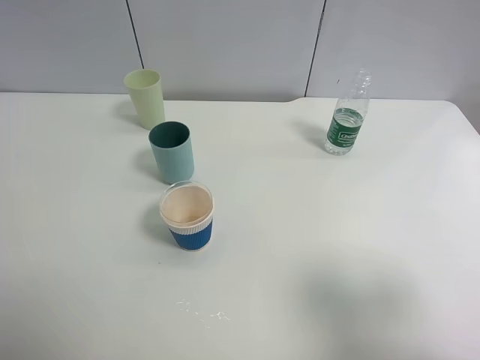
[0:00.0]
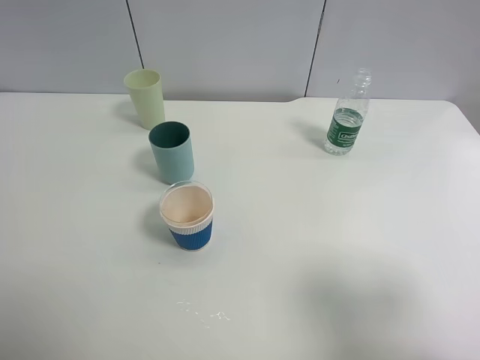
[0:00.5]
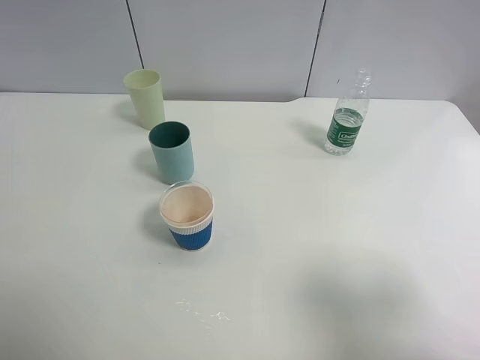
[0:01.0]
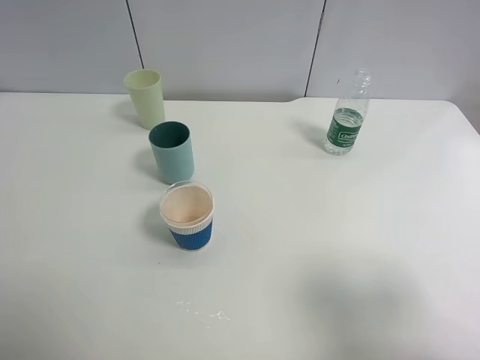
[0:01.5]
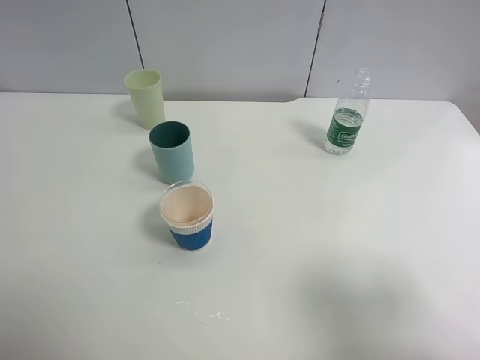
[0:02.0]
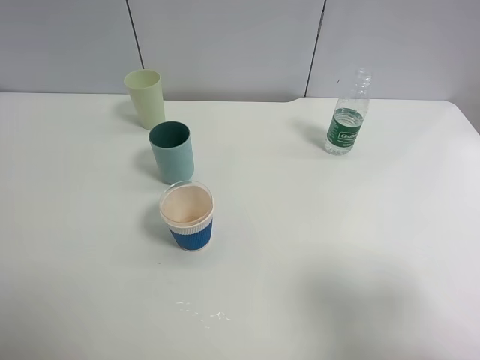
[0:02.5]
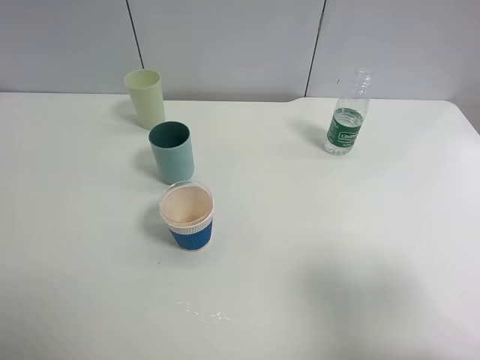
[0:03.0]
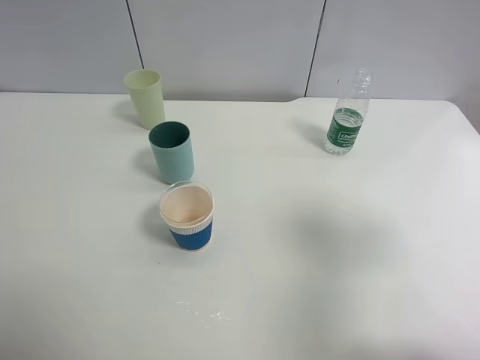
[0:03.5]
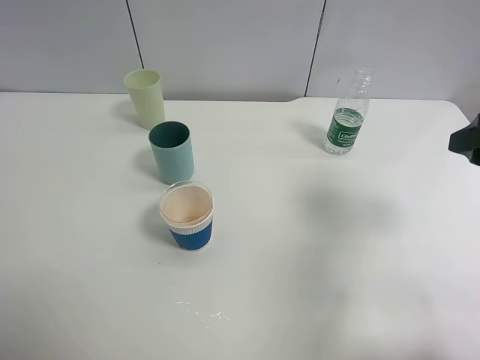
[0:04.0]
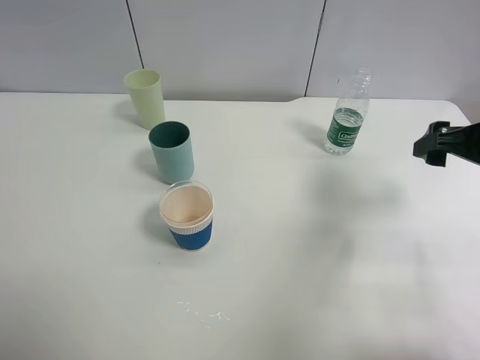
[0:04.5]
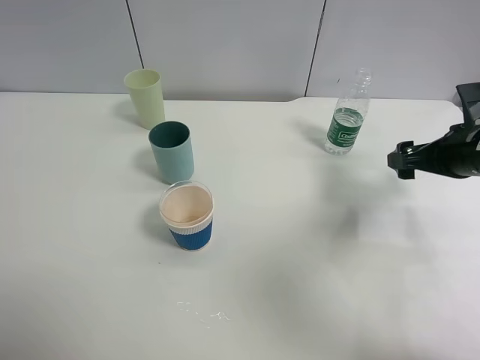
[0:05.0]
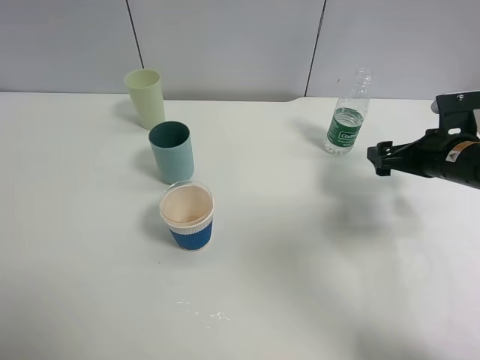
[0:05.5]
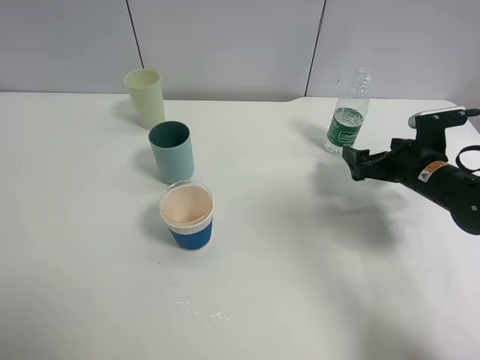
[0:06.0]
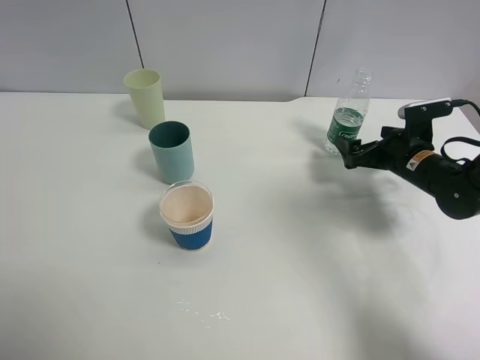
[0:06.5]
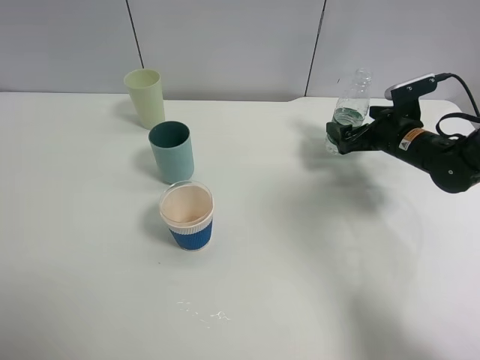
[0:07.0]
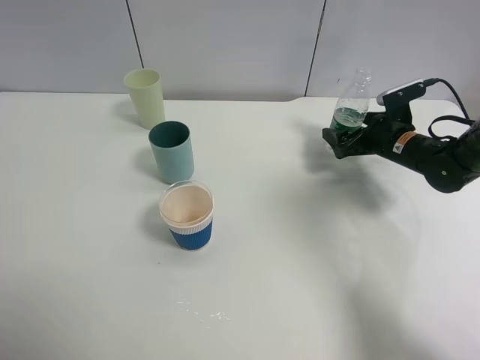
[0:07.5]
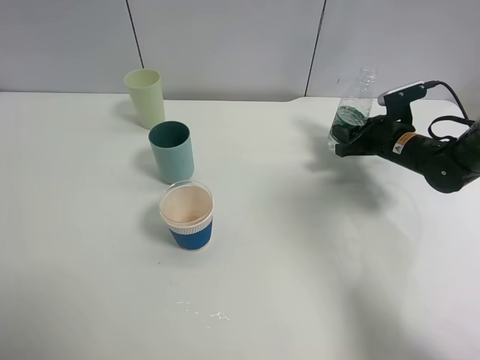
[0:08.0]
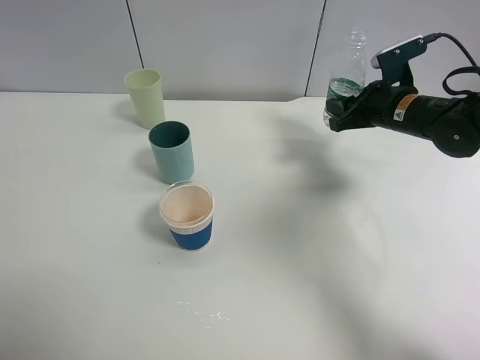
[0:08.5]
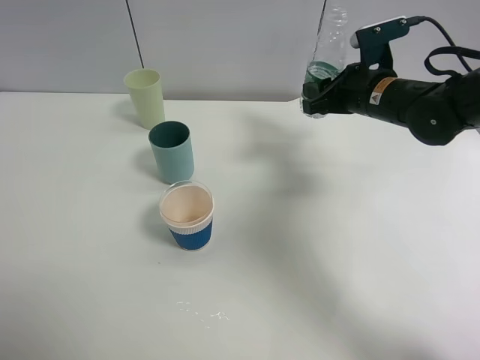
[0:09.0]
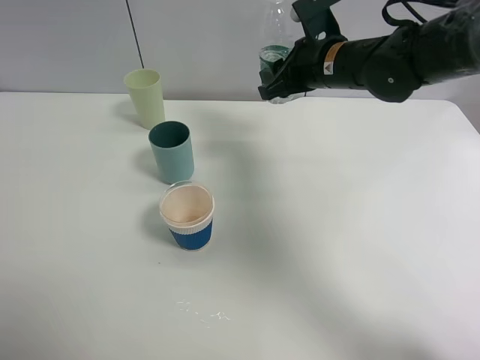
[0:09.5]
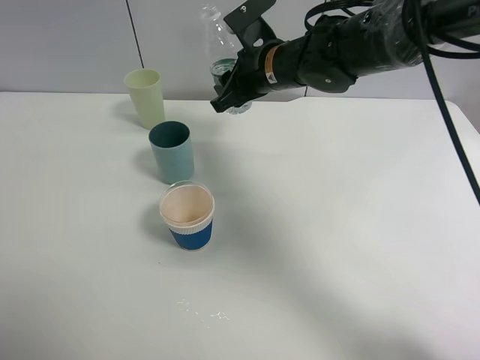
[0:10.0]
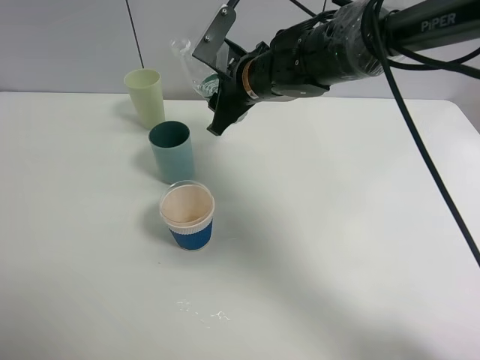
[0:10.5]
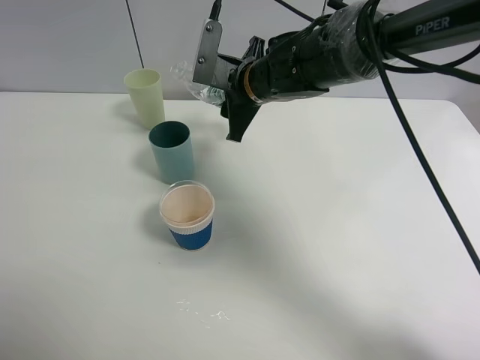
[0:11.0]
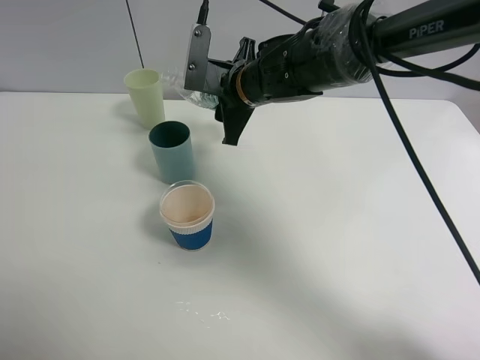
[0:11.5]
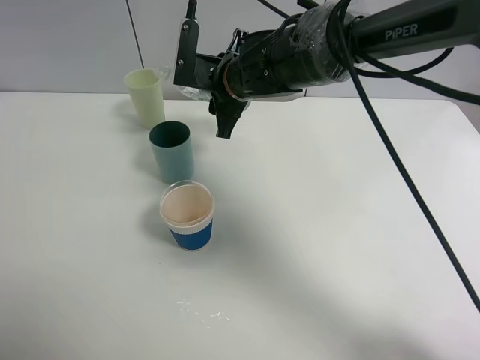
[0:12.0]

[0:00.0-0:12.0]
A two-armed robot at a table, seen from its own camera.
Task of the whole recording: use a clamp to hold the bottle of the drink, pour the beverage into a random cup, then clamp the cup containing the drink and pour the drink into another random cup.
Step, 0:00.0 to 0:09.0: Pick up the water bottle with right gripper.
0:00.0 to 0:02.0: The two grippers keep their place.
0:02.0 to 0:04.0: The right gripper goes roughly 15 cm forward.
0:04.0 to 0:06.0: The right gripper goes roughly 20 cm downward and forward.
0:06.0 to 0:08.0: The right gripper moves forward, approximately 10 cm, and closes its fingers.
0:08.0 to 0:10.0: The right gripper is displaced to the left and upward by some 25 cm.

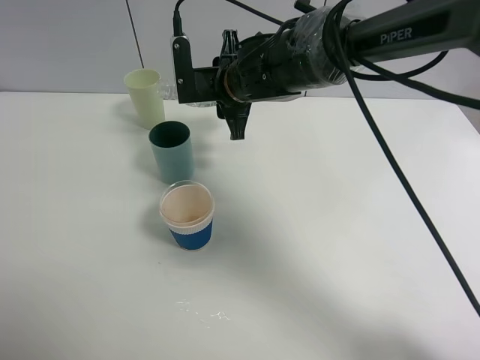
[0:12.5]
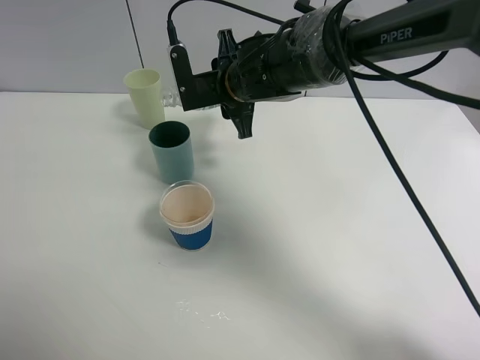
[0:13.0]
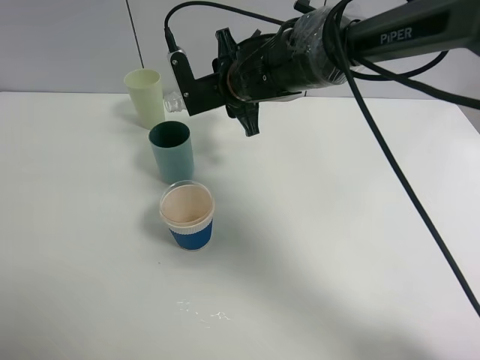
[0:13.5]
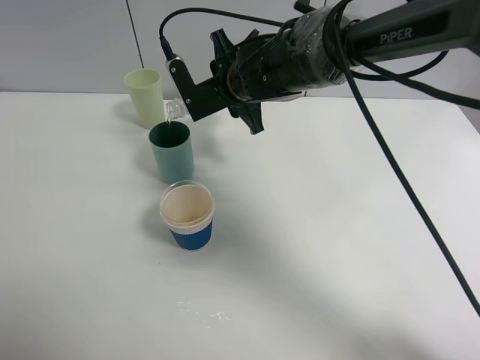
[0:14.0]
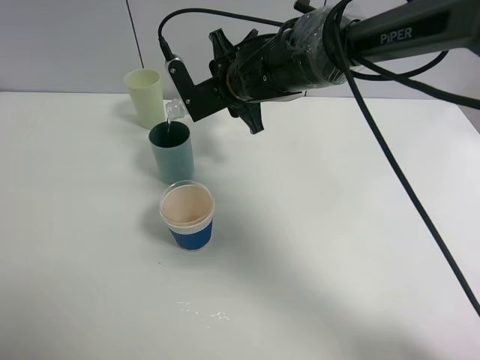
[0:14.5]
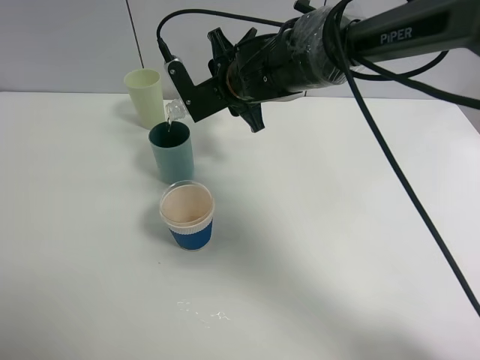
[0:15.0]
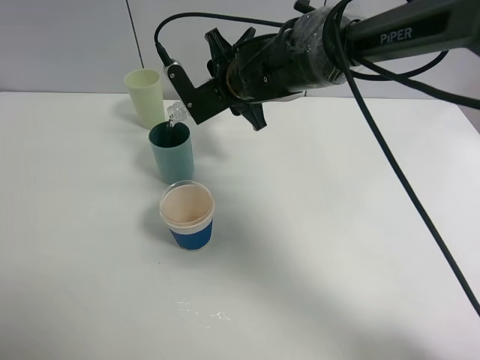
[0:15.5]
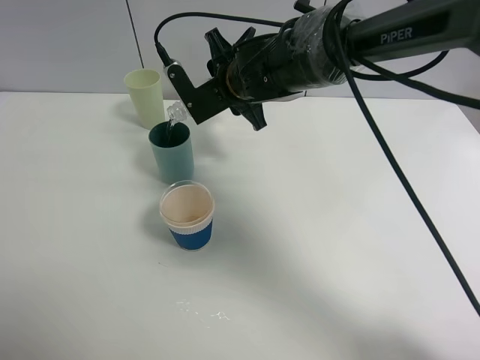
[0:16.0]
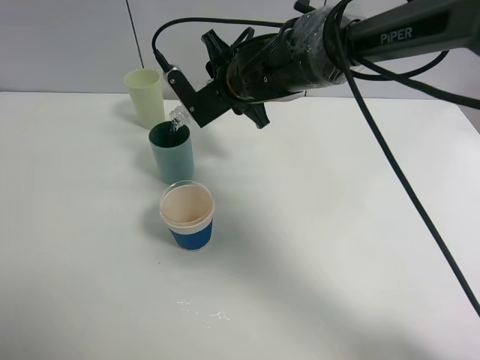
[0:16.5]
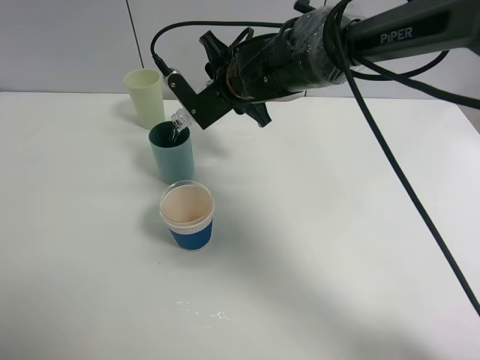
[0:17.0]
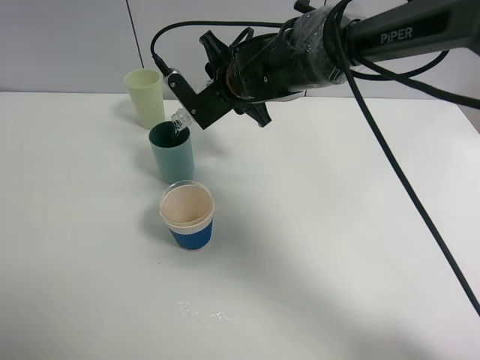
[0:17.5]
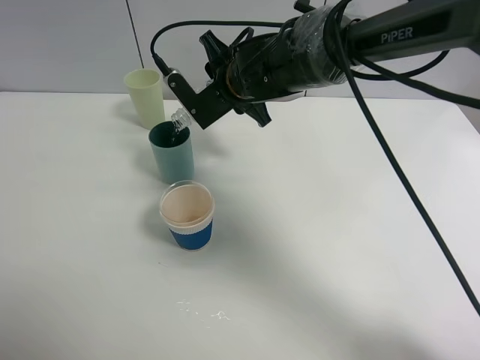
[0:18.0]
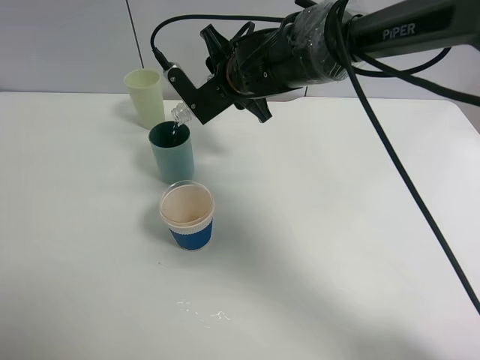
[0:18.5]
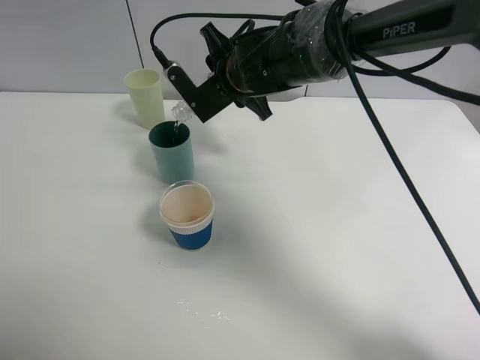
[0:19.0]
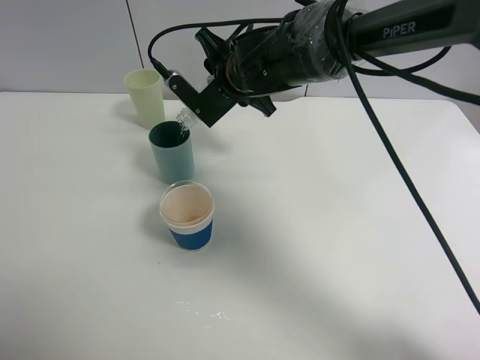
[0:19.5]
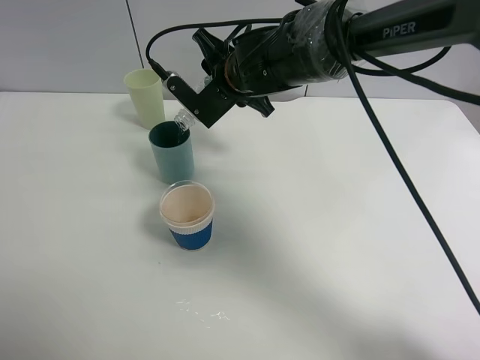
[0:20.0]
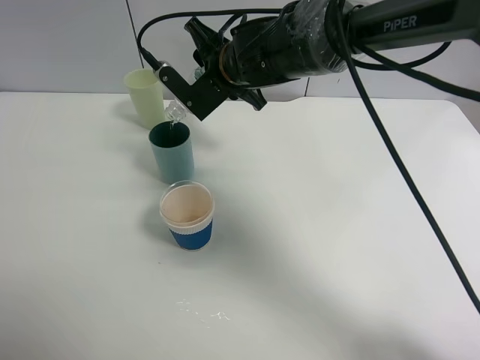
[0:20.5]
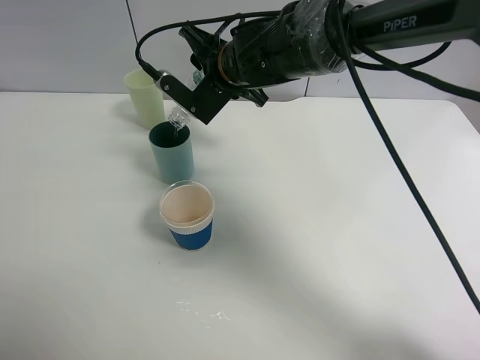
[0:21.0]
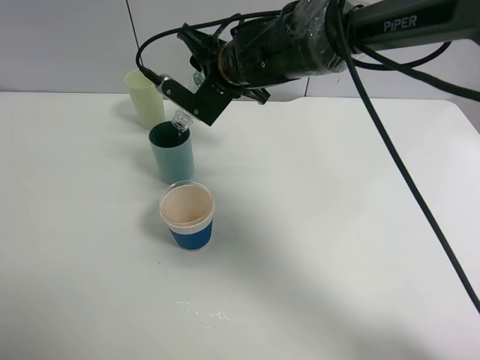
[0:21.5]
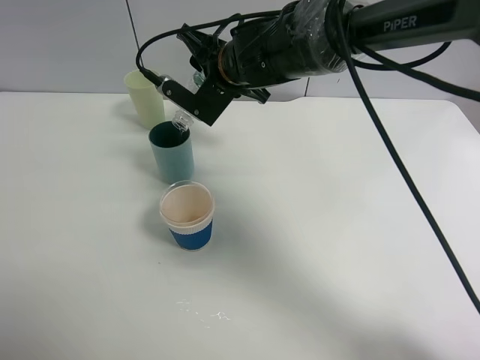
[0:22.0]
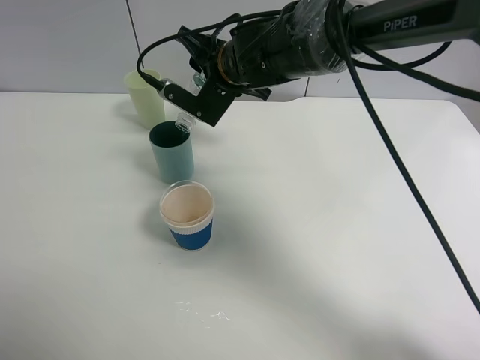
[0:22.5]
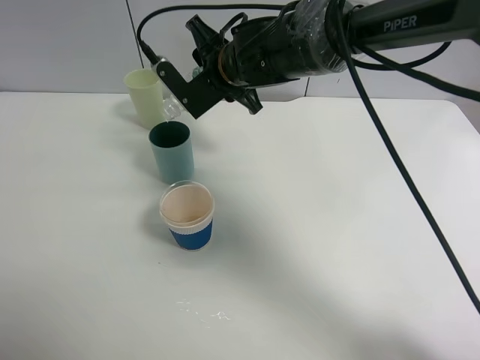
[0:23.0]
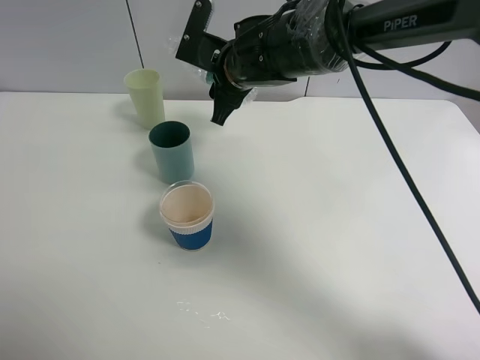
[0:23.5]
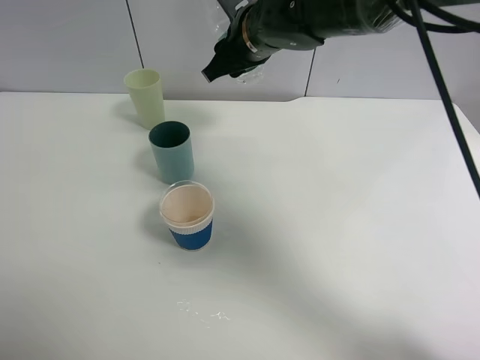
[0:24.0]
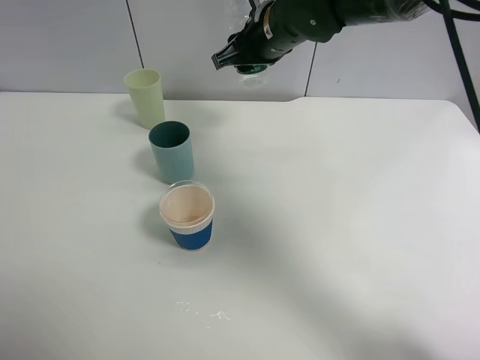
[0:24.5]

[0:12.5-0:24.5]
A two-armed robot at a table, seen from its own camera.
Task of the whole recording: use a clamp to hold the bottle of the drink, pour the beverage into a random cup, then clamp the cup containing the drink and pour the drink into another random cup.
Step, 0:12.5 to 0:23.0: Pour water into the blue plastic cup with right gripper.
0:14.5 to 0:16.5: The grippers make only small movements.
0:16.5 to 0:18.5: Both grippers stay put.
0:18.5 to 0:20.5: The grippers make only small movements.
0:20.5 to 0:22.5: The grippers move only a little.
0:22.5 to 0:24.5: The right gripper moves to the right, approximately 5 cm.

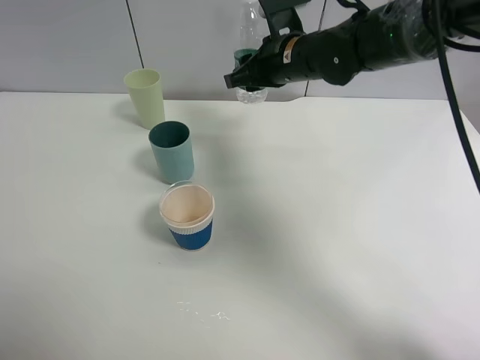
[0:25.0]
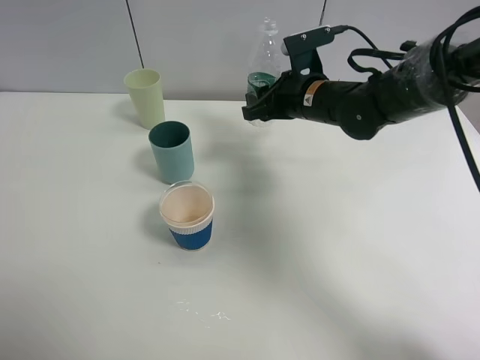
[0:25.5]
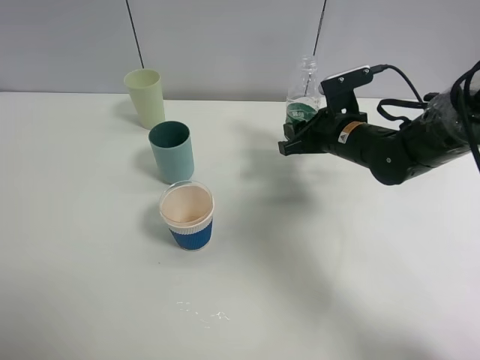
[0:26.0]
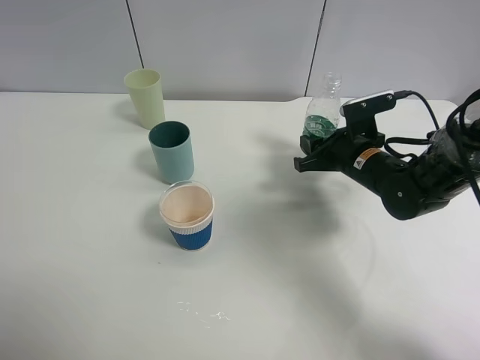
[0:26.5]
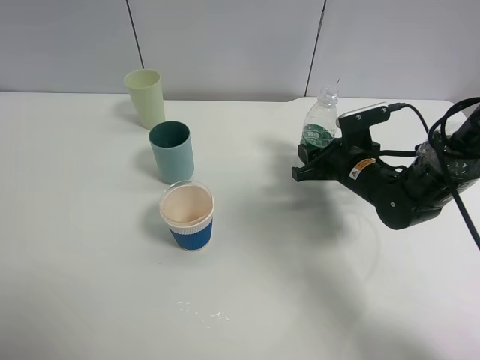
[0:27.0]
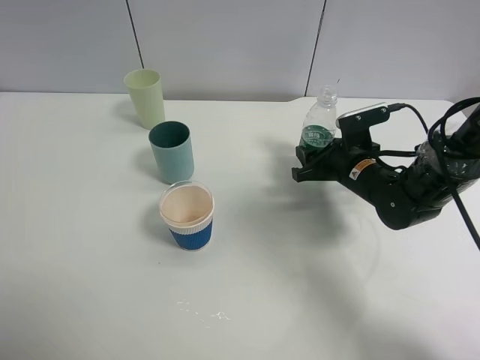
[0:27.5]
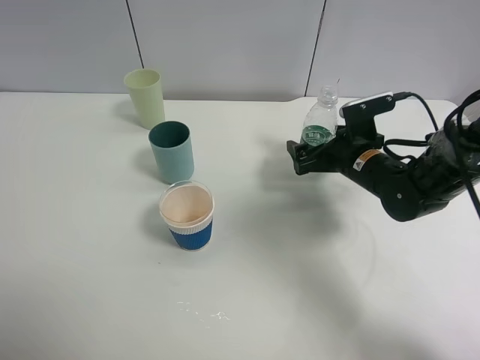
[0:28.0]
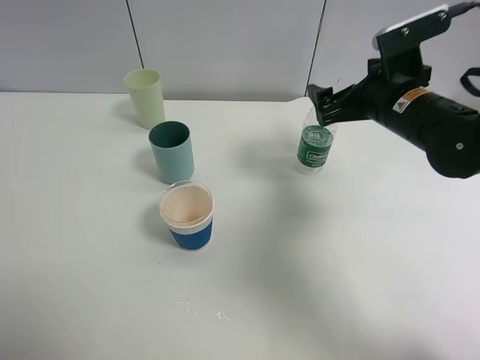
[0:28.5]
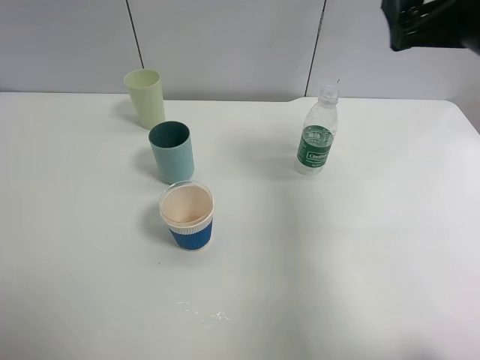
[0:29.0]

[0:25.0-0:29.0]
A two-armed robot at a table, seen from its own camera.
Task of the whole recording: use a clamp to hold the bottle of the drink, pour the beverage into a random cup, then clamp the cup containing the drink and pour the drink into another random cup.
Step, 0:25.0 to 0:28.0: Place the water bottle on the table with right gripper.
0:25.0 to 0:27.0: The right gripper moves downward, to the right and backward, some 20 cm.
0:27.0 to 0:29.0: The right gripper moves upward, some 25 cm, and opens.
